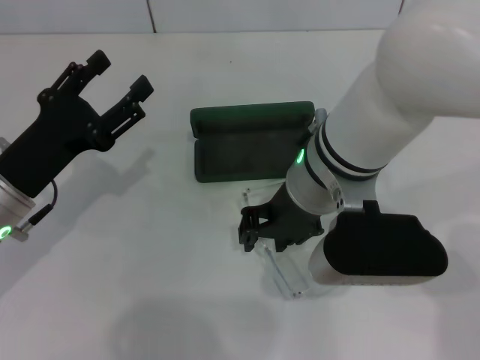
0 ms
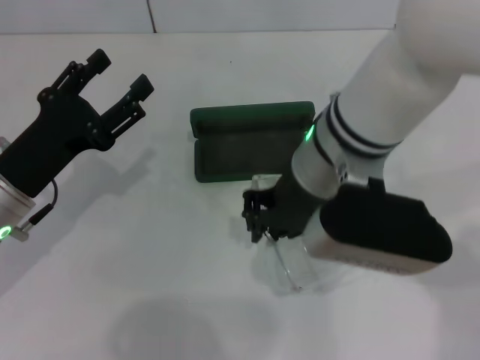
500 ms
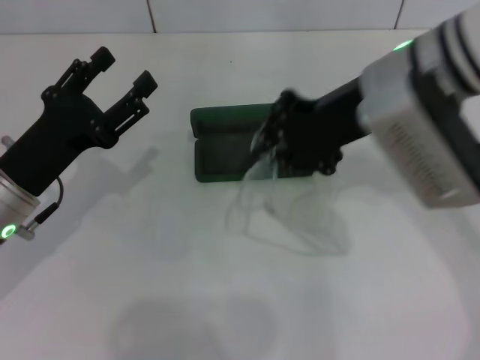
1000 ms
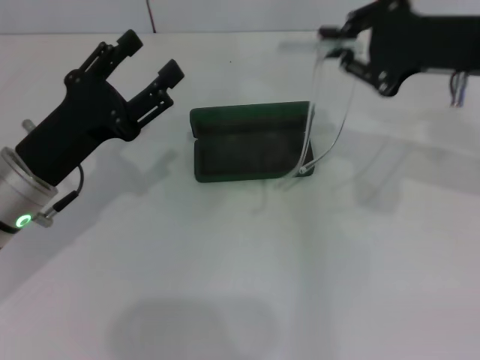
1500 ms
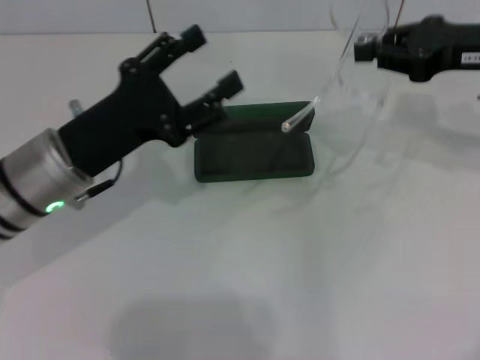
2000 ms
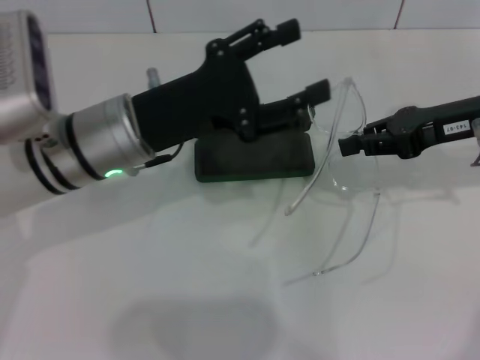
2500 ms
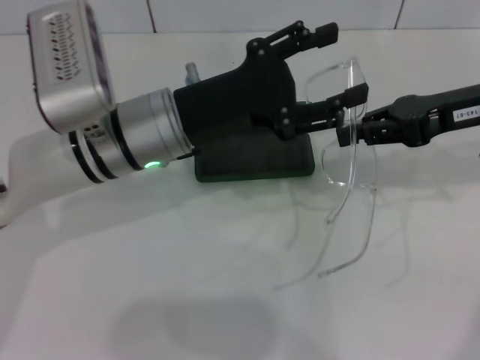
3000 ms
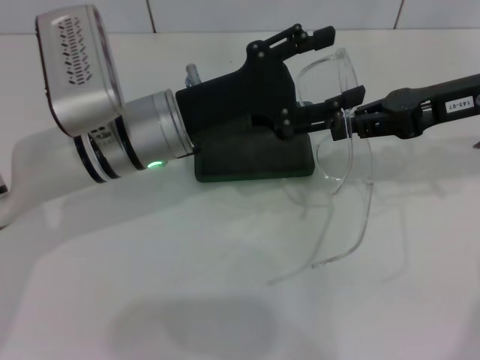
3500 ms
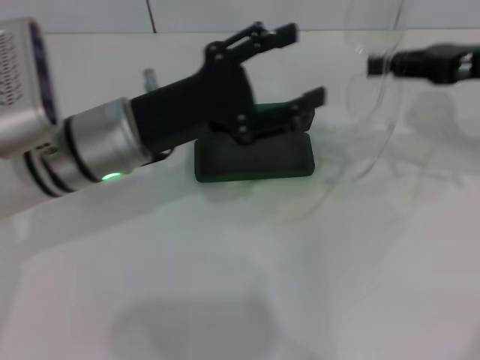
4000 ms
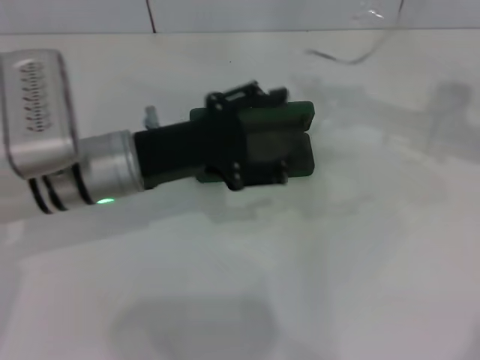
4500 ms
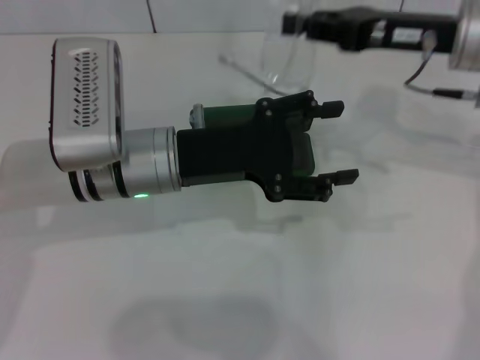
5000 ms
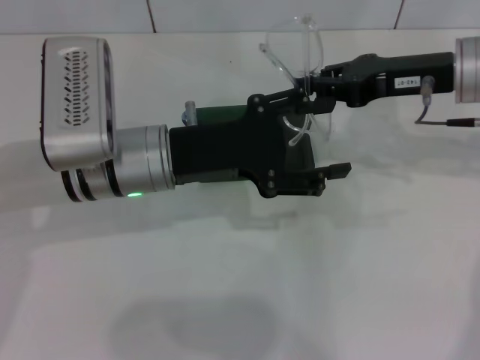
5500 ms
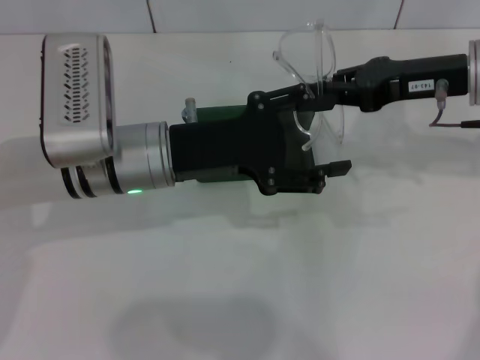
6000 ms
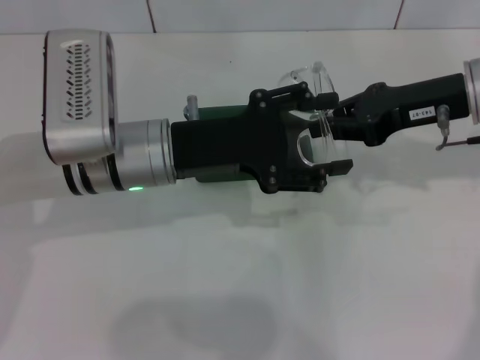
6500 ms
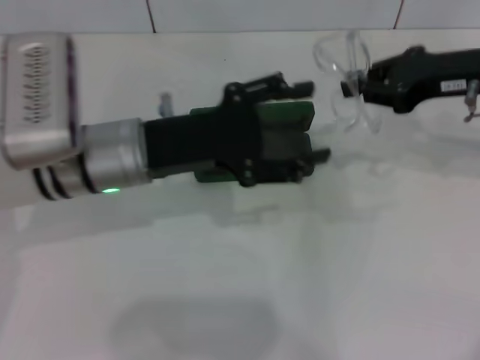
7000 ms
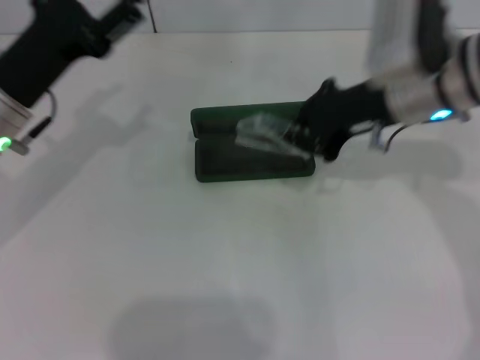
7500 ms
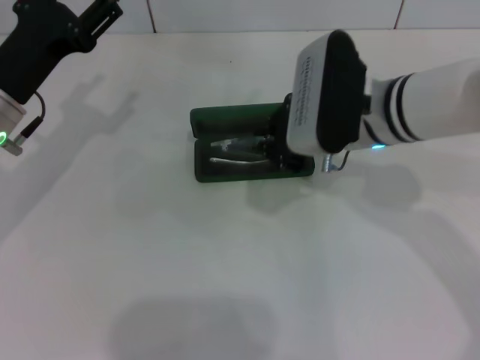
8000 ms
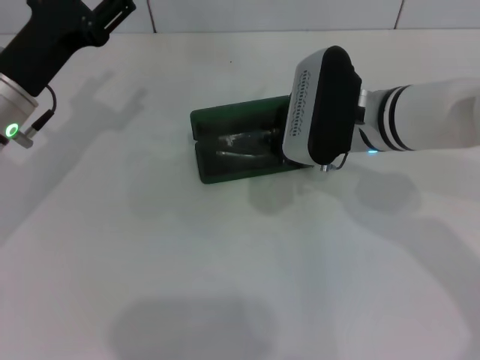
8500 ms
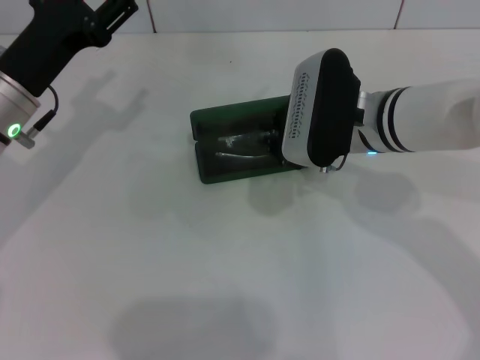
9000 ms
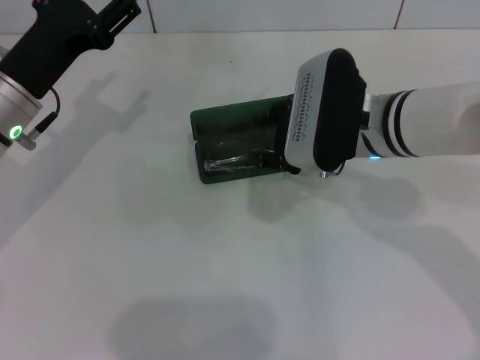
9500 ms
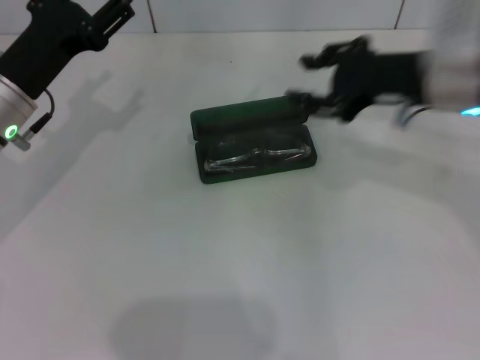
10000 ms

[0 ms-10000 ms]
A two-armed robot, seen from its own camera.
Step, 500 ms to 6500 ms: Fold the frame with your left hand.
Step, 7000 ms to 9000 ms: Put the glasses into the case with your right hand.
0 ms to 2000 ms: The right gripper moves to the right, approximately 20 cm, and closes its fingers. The left gripper travels to the right by approximately 5 cm.
4000 ms to 6000 ms: The right gripper moves to the left, roughly 5 cm.
6000 ms to 8000 ms: Both grippers move to the left, approximately 10 cm.
8000 ms to 10000 ms: The right gripper goes approximately 10 cm to the right, and opens up.

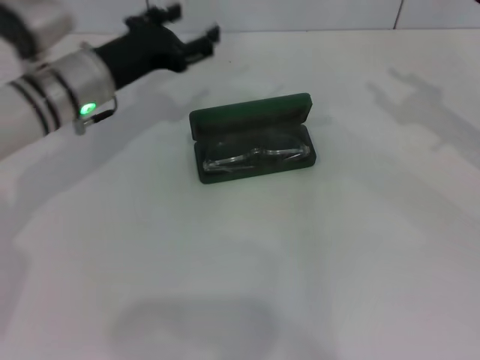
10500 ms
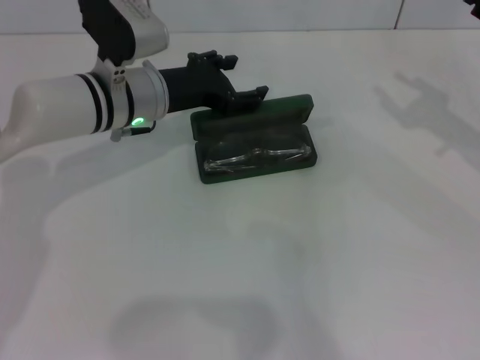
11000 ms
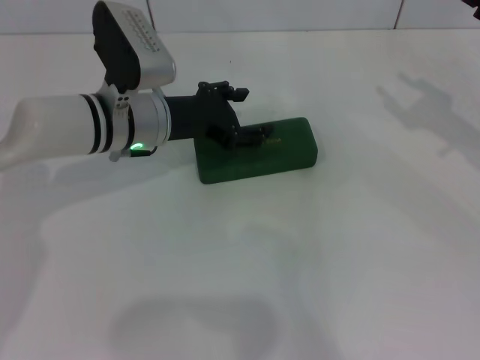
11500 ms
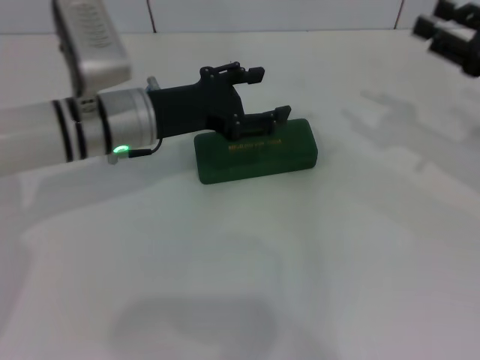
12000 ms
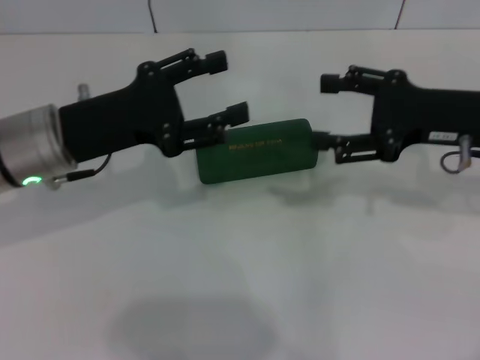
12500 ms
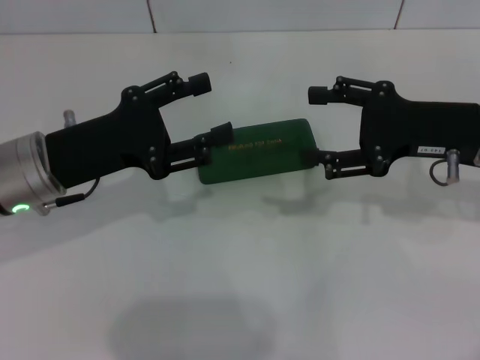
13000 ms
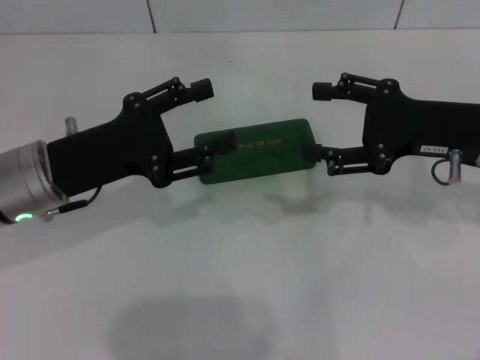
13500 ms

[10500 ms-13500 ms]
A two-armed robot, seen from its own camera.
Step, 10500 ms to 11500 ms: Close the glasses case with your left hand.
12000 ms to 13500 ms: The left gripper travels backward and to the left by some 10 cm, while the right gripper goes some 10 cm to the left, and opens up.

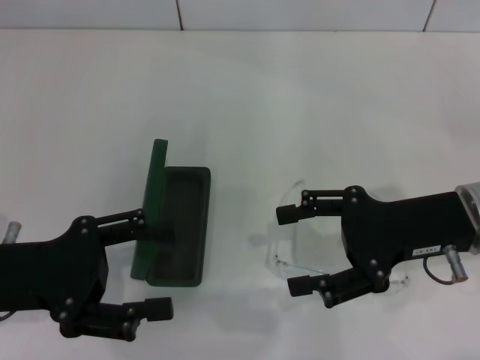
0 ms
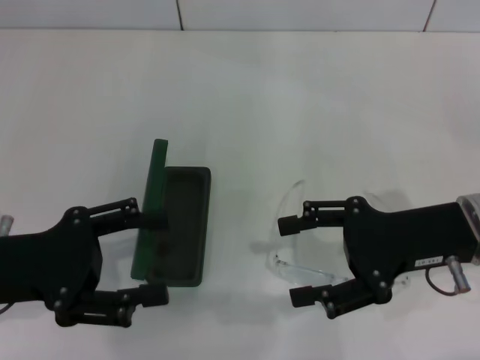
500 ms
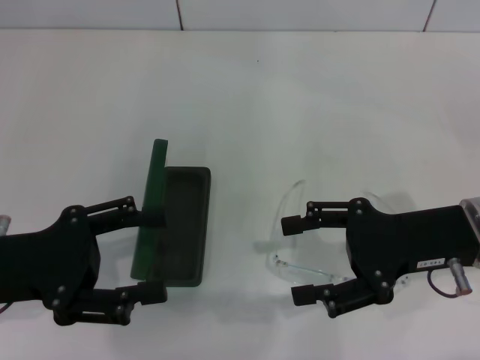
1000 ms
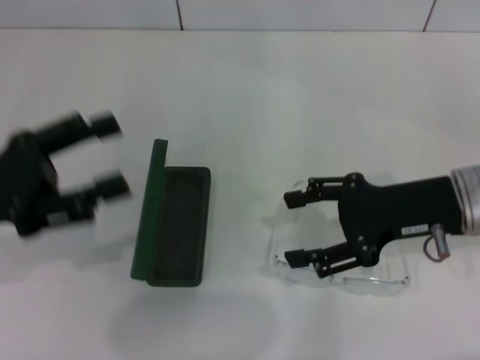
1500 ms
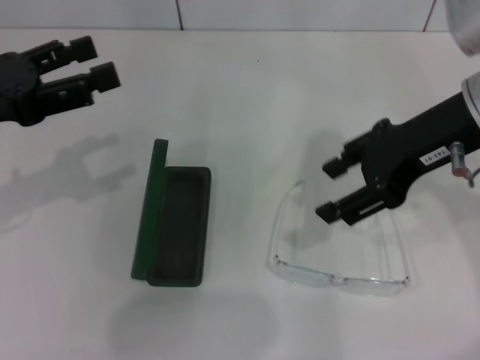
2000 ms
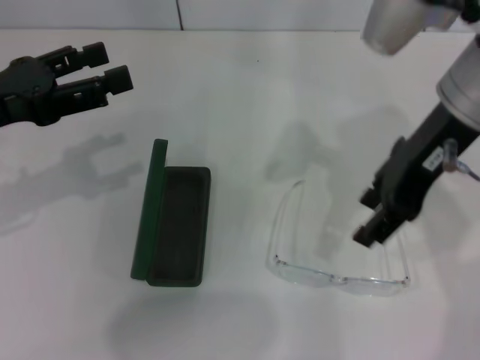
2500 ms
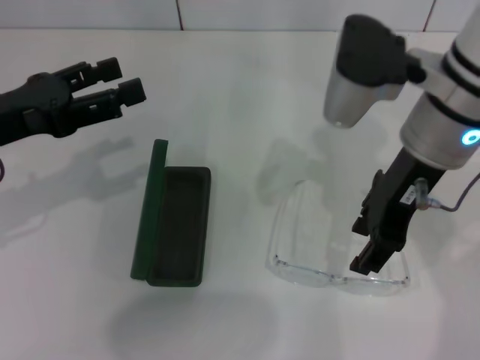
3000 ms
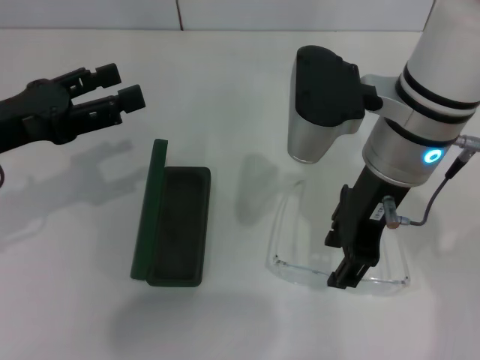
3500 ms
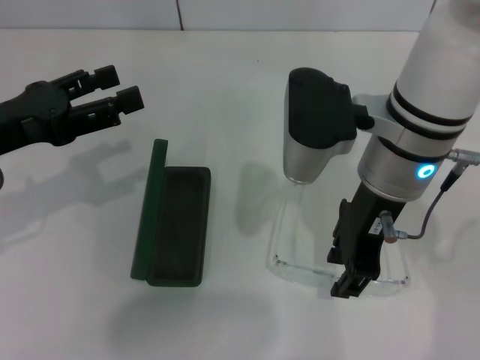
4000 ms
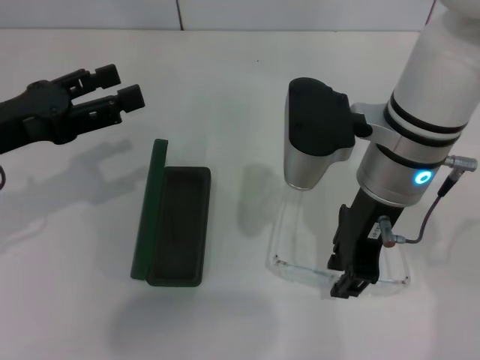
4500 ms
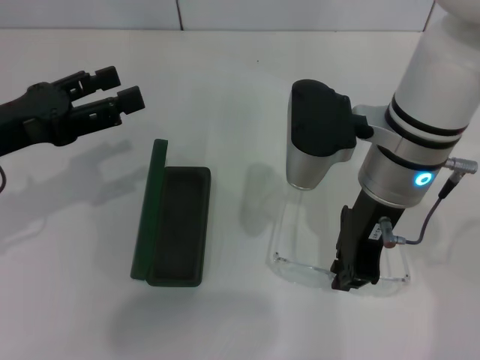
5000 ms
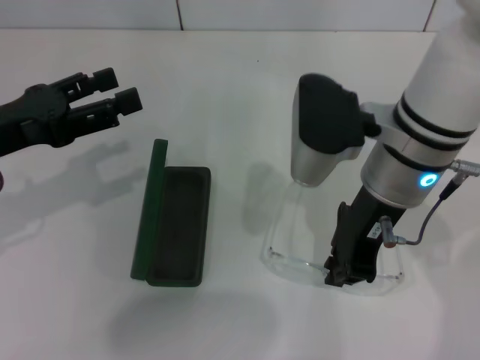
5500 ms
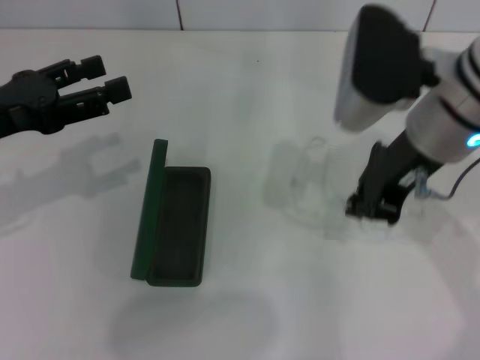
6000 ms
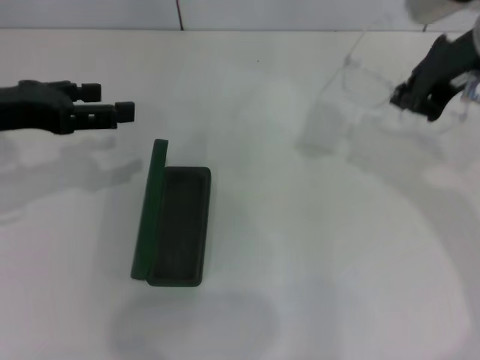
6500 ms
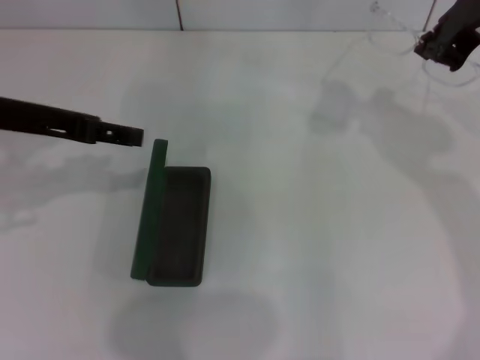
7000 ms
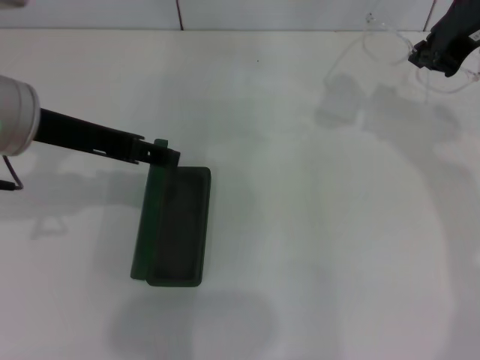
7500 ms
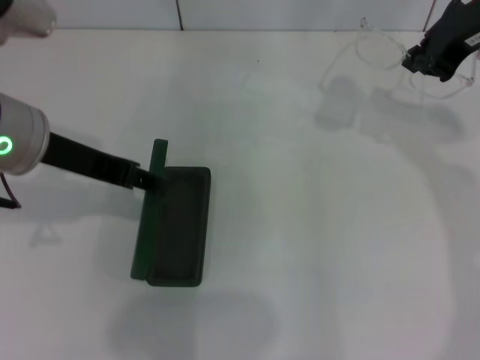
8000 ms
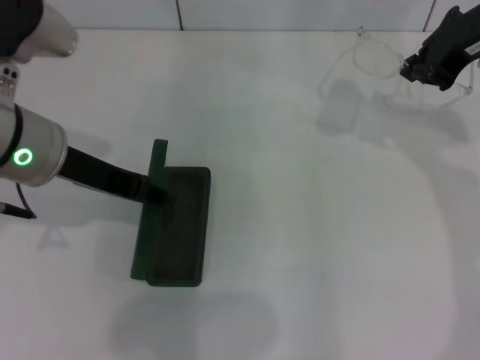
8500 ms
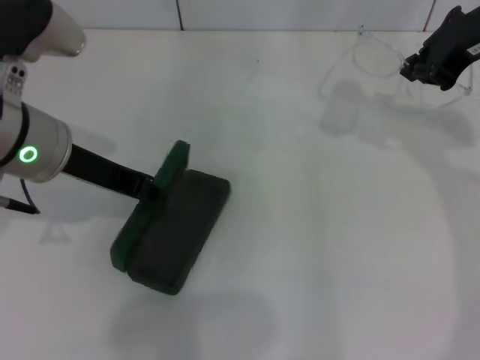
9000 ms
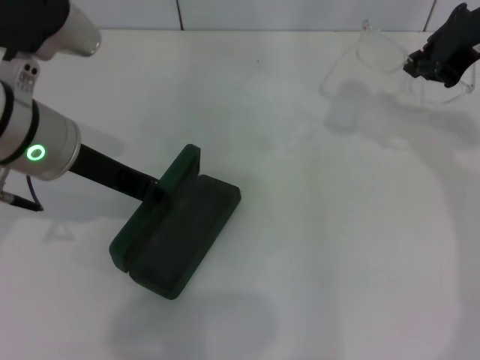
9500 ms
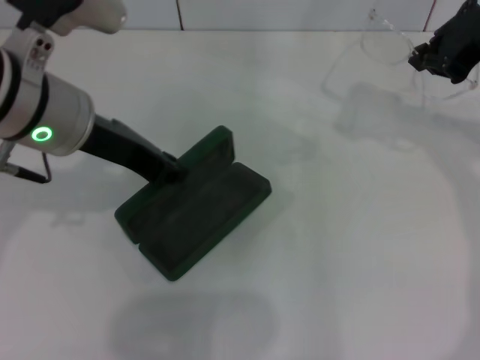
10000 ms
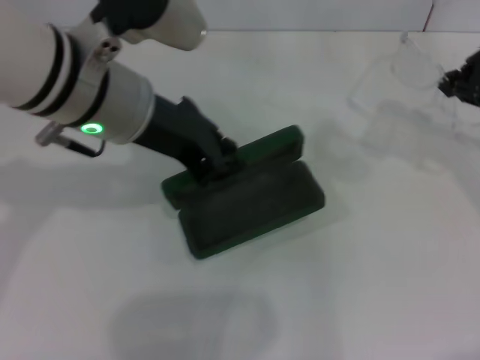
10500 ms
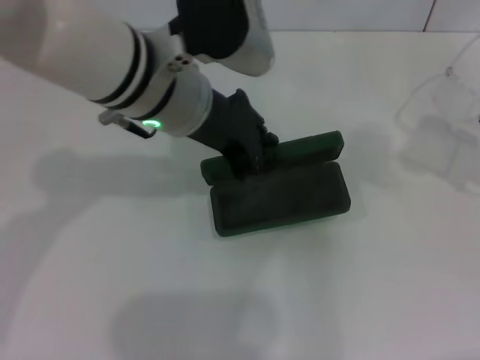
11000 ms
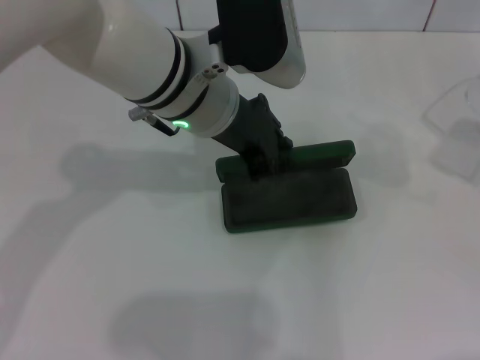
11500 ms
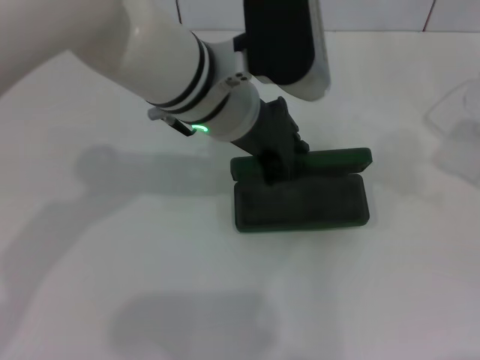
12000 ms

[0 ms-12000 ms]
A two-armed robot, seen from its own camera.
Step, 0 ms to 5000 ms: Grab the eyeglass frame with your right hand.
Step, 5500 ms to 9500 ms: Grab the glasses case with your left hand.
0 ms to 2000 ms: The left gripper heads upward and forward, covering some 10 cm; the right gripper goes approximately 10 cm upward.
2000 ms to 4000 ms: The right gripper goes some 10 cm to the left, and closes.
4000 ms to 6000 ms: The right gripper moves some 5 cm, and closes.
6000 ms to 8000 ms: The left gripper shifts approximately 10 cm to the right. The right gripper shifts roughly 10 cm to the right and forward.
8000 ms to 10000 ms: The left gripper closes its fingers.
10000 ms to 12000 ms: The left gripper travels to the right by about 15 cm. The right gripper heads to the right, backward and downward, covering some 15 cm.
